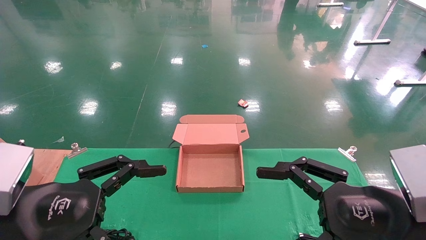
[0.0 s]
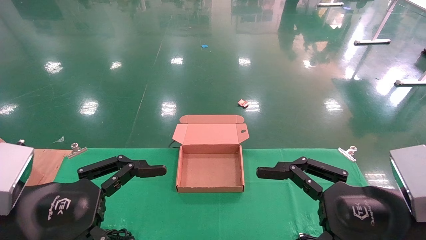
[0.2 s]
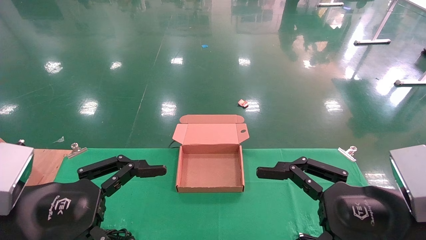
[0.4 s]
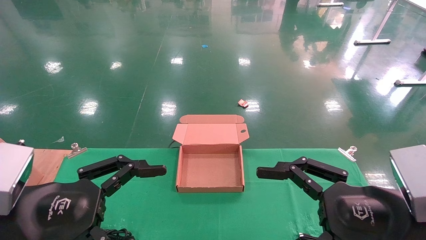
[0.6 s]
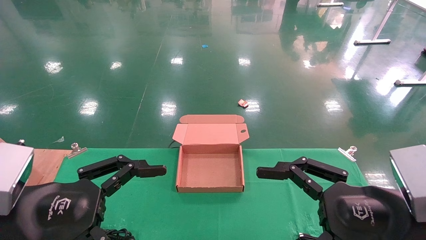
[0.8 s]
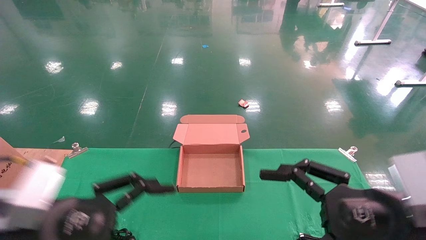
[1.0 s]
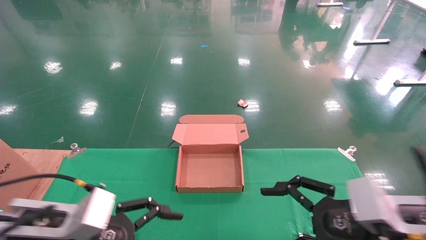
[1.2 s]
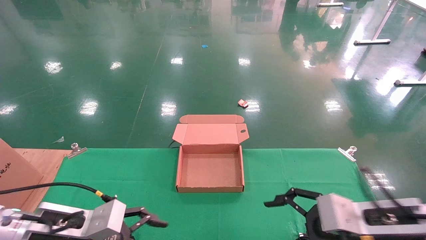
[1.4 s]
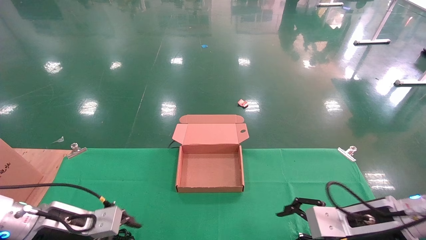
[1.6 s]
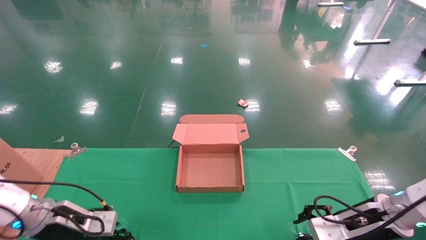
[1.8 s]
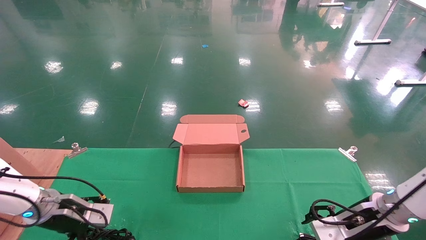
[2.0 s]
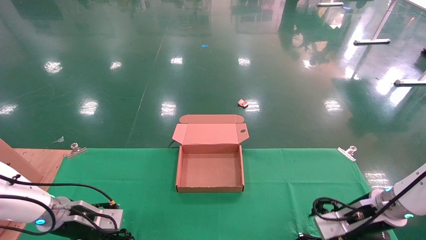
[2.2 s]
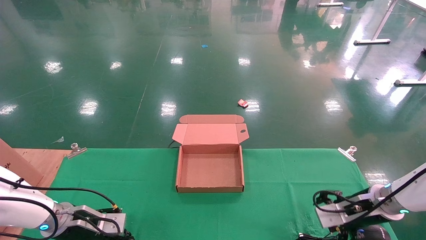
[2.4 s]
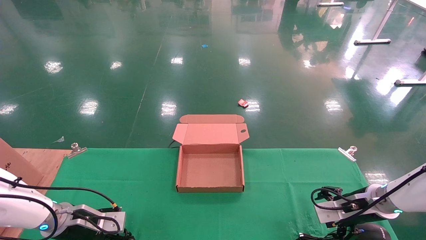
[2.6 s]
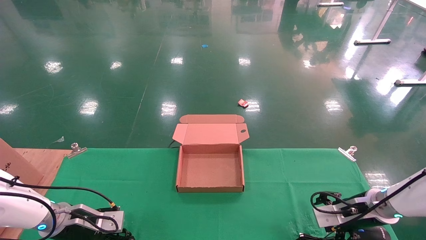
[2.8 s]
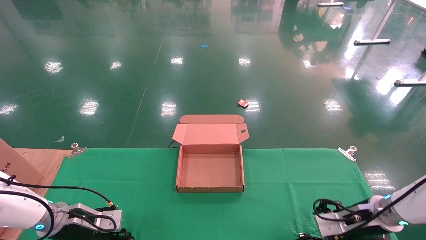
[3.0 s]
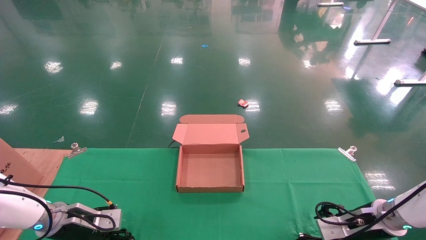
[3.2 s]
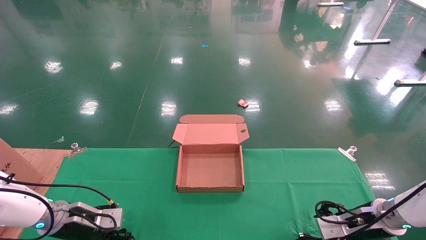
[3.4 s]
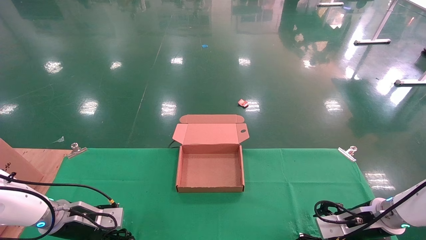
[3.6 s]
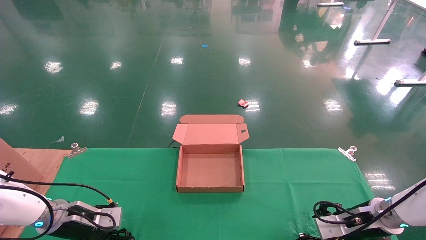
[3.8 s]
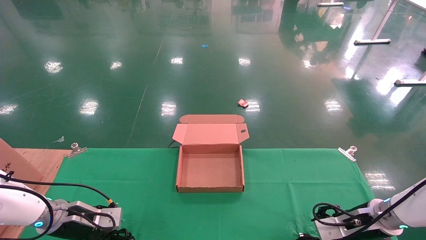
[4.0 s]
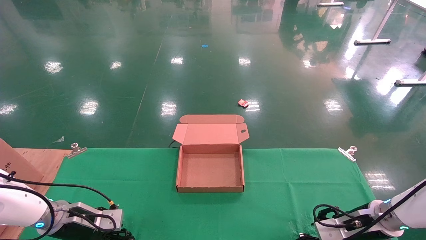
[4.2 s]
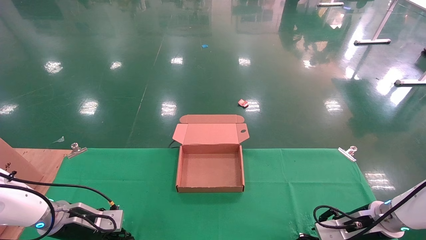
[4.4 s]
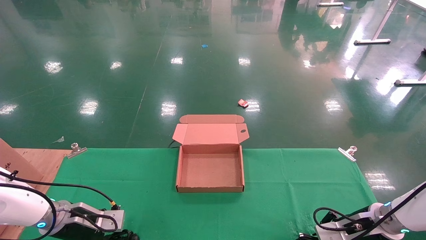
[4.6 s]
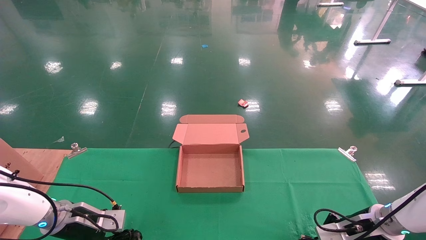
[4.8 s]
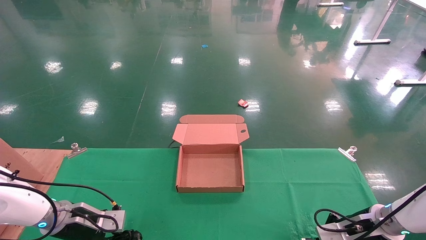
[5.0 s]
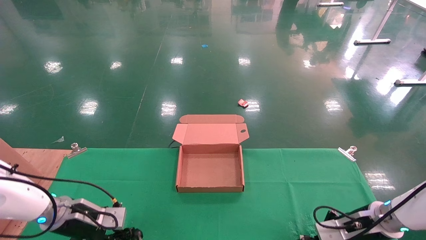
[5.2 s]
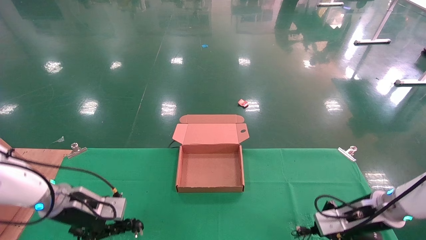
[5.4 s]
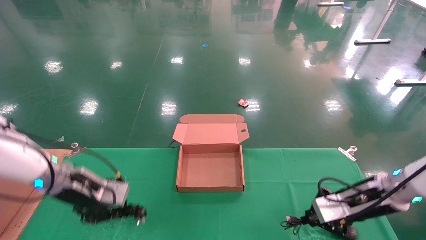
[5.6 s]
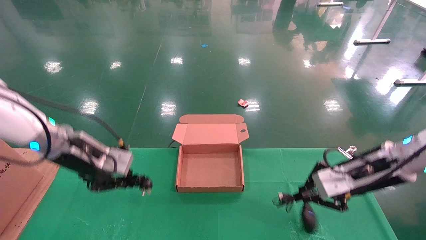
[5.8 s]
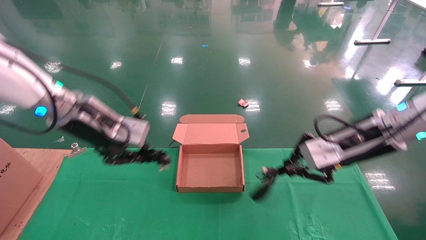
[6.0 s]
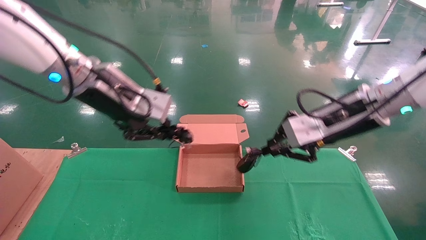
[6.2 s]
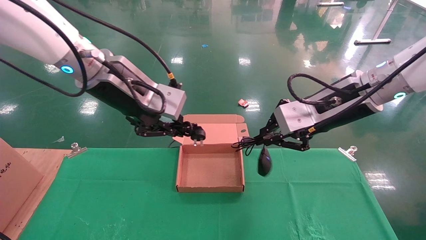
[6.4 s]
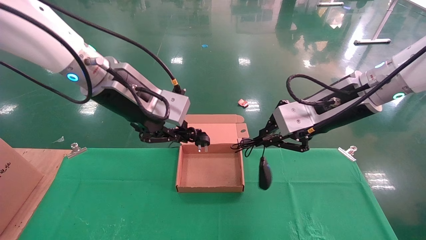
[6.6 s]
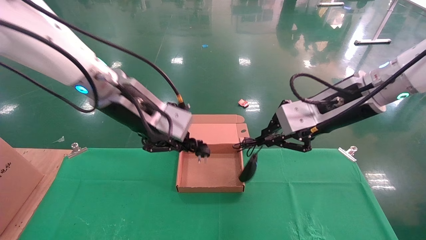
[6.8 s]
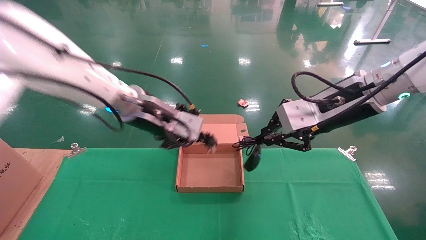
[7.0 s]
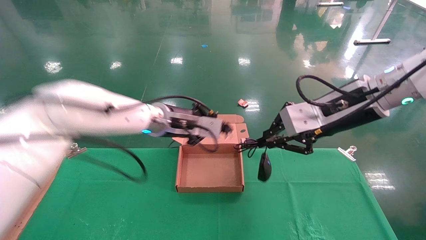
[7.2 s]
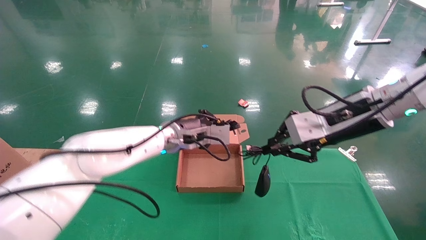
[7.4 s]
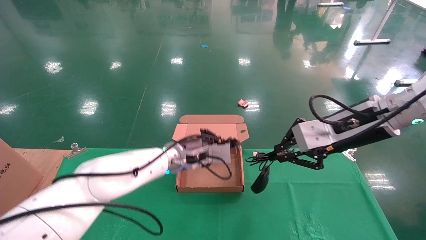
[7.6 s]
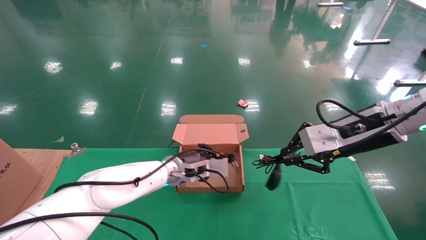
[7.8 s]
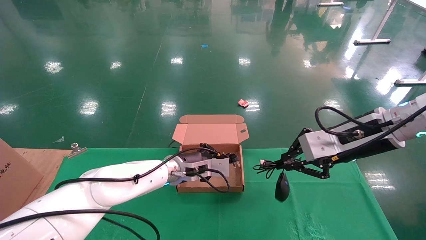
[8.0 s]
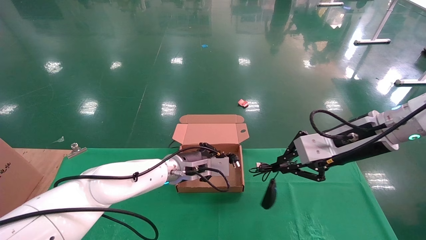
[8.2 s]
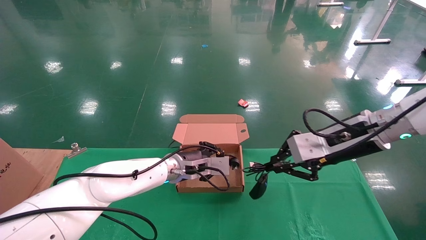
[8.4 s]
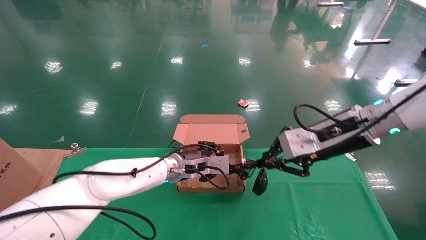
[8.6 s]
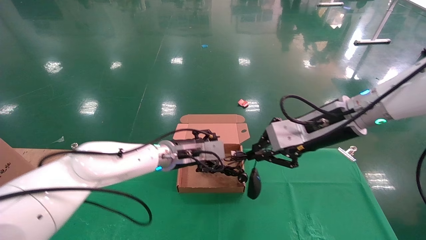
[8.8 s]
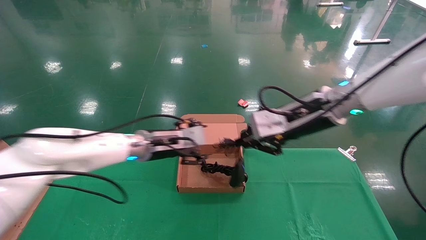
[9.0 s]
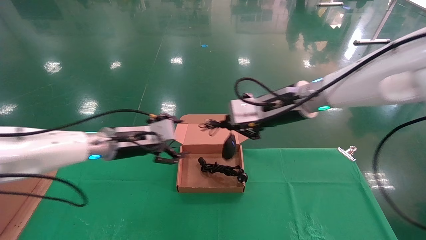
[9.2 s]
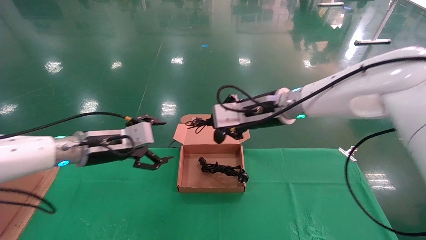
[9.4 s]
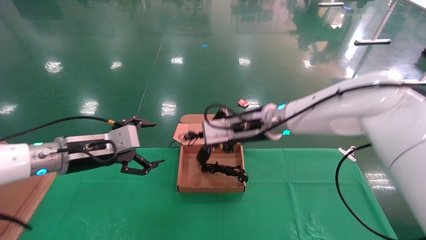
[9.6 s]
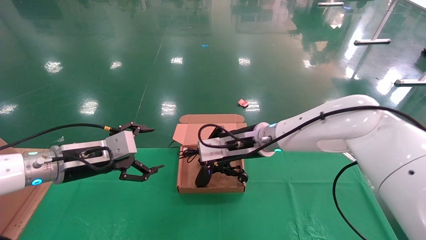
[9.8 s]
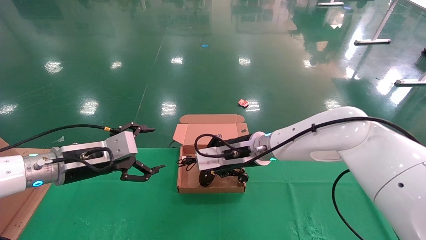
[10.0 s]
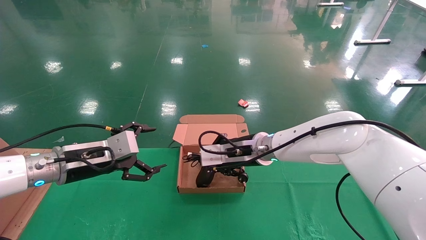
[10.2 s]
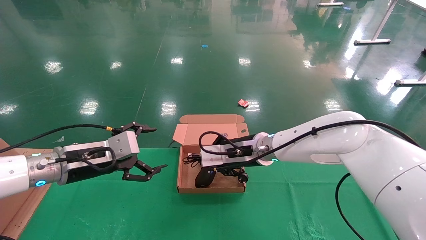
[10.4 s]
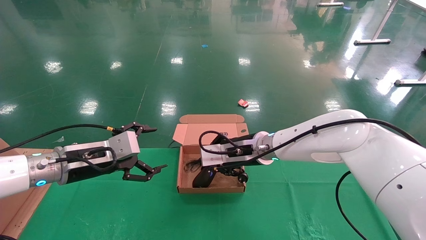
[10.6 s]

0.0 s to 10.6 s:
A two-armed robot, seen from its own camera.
Step, 1.4 to 5.6 s: Grab and lift both the mouse and power cord from the accessory packaging area at the same time.
0.0 to 1.6 s: The grippers both shift forward and downward by roughly 15 cm.
1.6 to 3.0 s: The right gripper goes roughly 15 cm forward, downward and to the right, while the left gripper heads forward and downward, covering approximately 10 cm.
3.0 to 4.6 s: The left gripper closes its fingers. Meanwhile the right gripper closes its fingers.
4.6 to 6.0 s: The right gripper is displaced upward by roughly 20 cm, and closes; the left gripper moves upward and to the right, approximately 30 cm.
6.0 to 7.6 s: The left gripper moves to the right, downward and forward, some 25 cm.
7.6 to 9.0 s: The grippers both shift to the left by roughly 10 cm. The left gripper opens.
9.0 to 10.6 s: The right gripper heads downward, to the left and forward, covering some 15 cm; the left gripper travels to the left and backward by roughly 15 cm, and opens up.

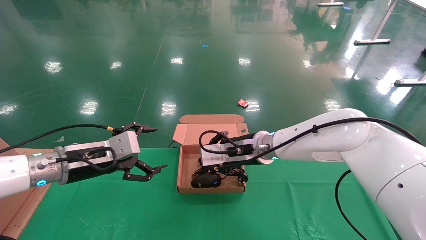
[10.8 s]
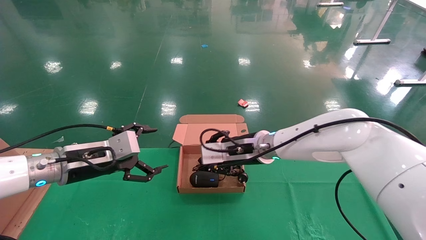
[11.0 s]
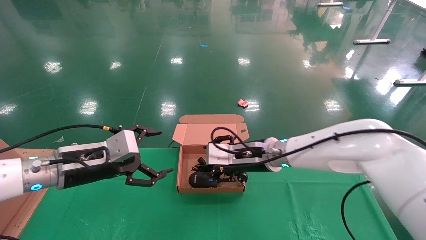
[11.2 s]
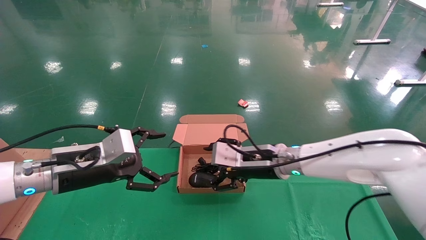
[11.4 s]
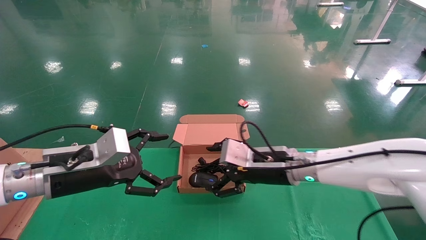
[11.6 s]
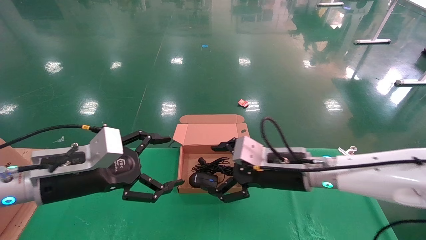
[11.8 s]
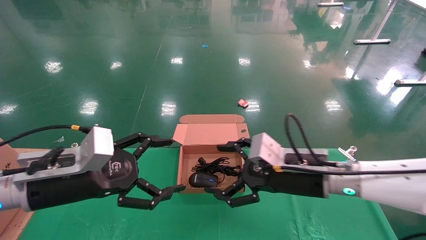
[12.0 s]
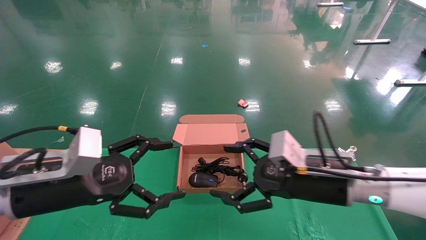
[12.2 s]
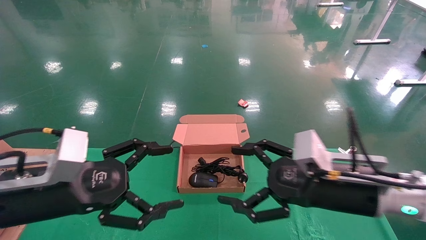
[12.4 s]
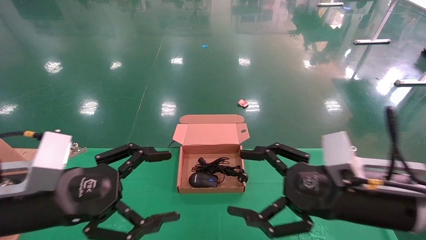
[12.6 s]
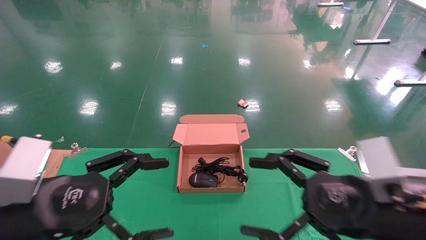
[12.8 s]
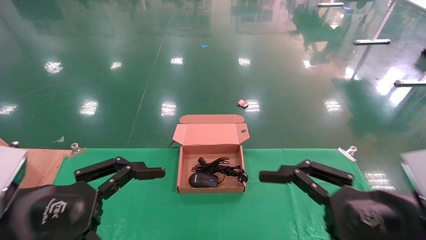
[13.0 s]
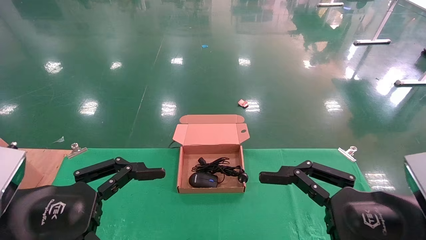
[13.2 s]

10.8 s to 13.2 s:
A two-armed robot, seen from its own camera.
10.8 to 12.0 s: The right gripper heads backward and to the right, covering roughly 15 cm, and opens its fingers. Meanwhile the left gripper shifts roughly 10 cm backward.
12.0 to 13.2 s: The right gripper is displaced backward and to the right by approximately 20 cm; the left gripper moves backward, approximately 10 cm.
